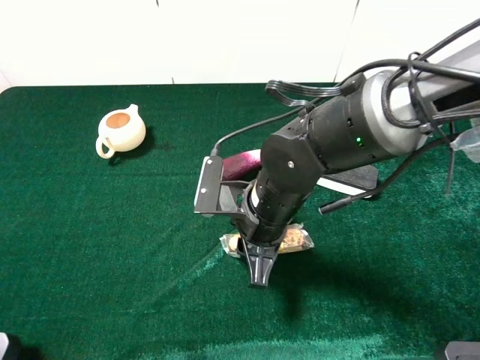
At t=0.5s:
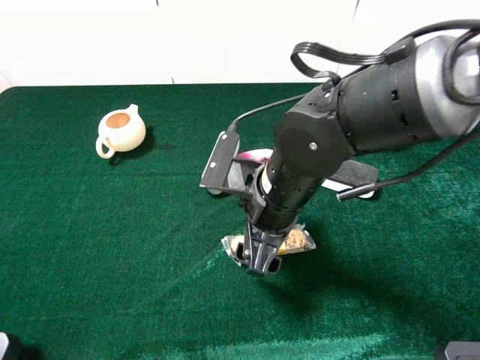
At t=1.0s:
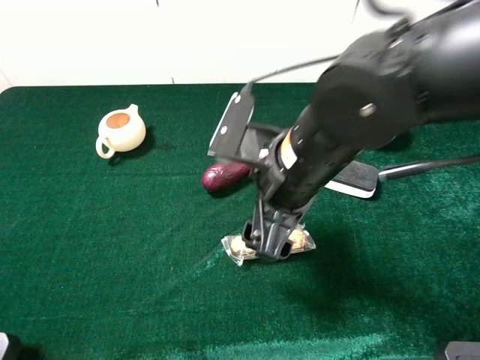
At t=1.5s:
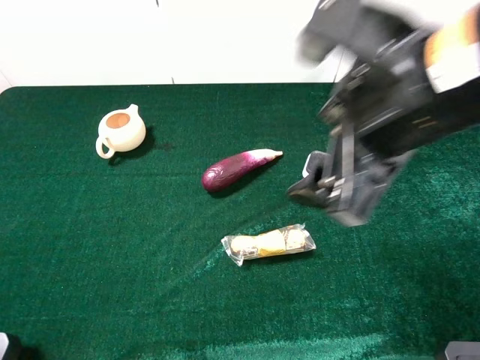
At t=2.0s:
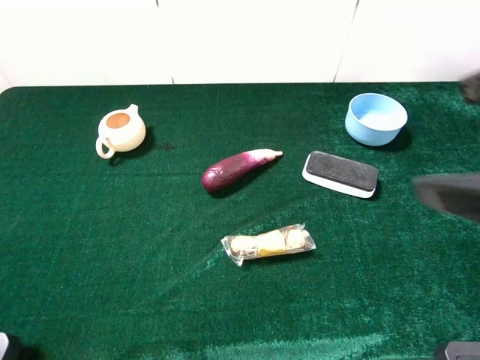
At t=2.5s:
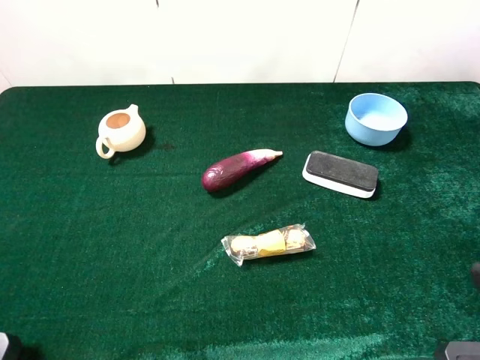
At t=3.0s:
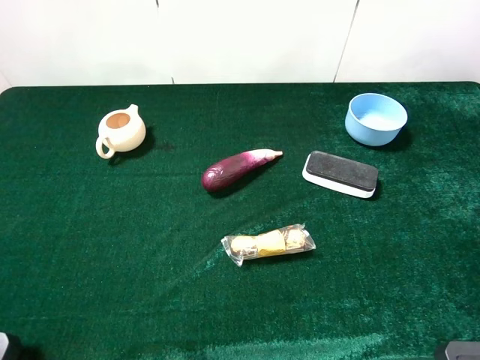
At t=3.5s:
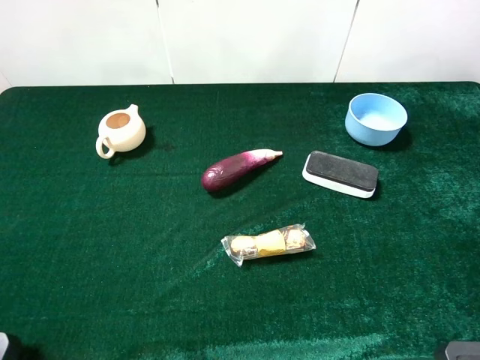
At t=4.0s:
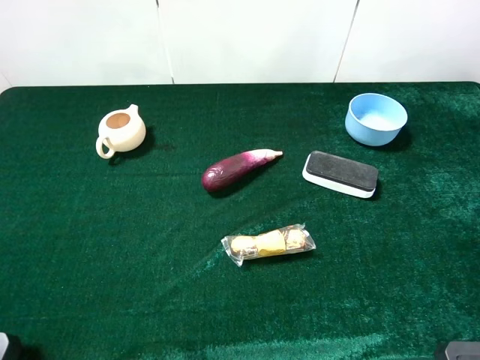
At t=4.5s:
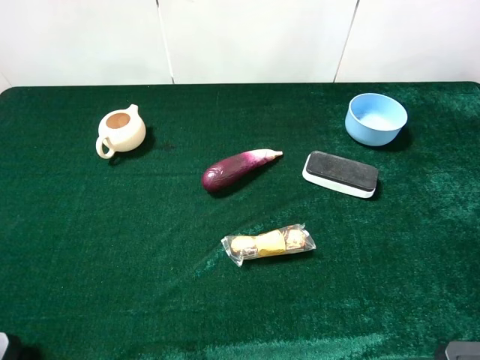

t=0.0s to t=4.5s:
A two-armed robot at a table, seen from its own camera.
Task of the whole recording: the gripper move the object.
t=0.0s to t=2.0s: The right gripper shifts approximately 30 cm upward, to the right and backward, and opens up.
t=2.0s to t=4.5s: The right gripper moves backward, to the right and downward, approximately 10 cm.
